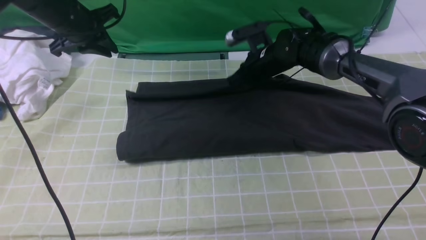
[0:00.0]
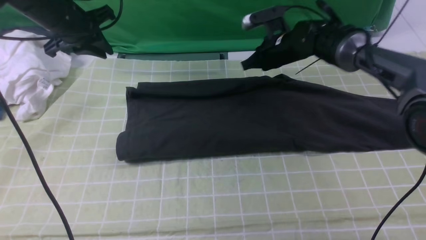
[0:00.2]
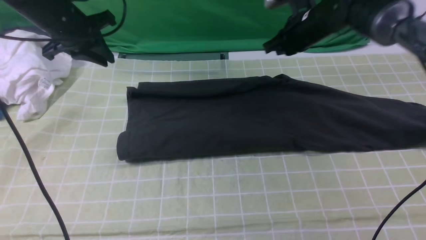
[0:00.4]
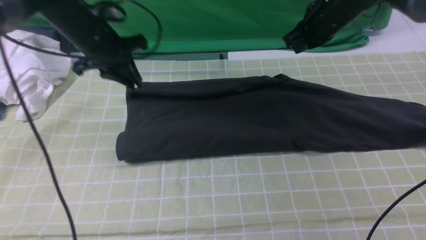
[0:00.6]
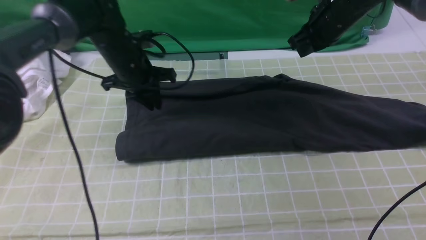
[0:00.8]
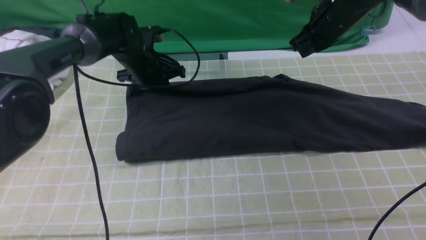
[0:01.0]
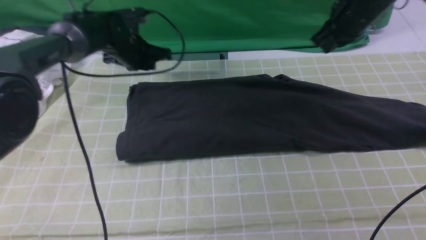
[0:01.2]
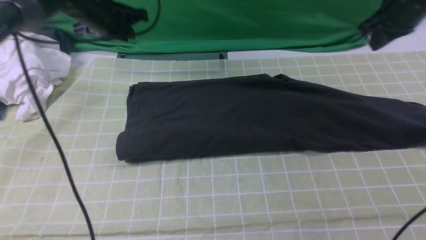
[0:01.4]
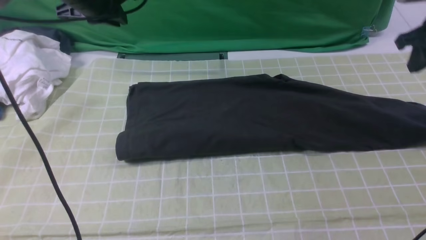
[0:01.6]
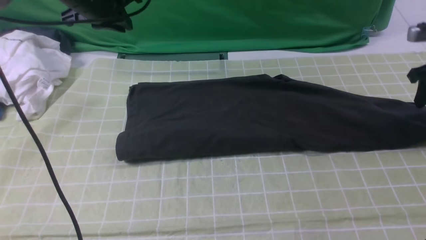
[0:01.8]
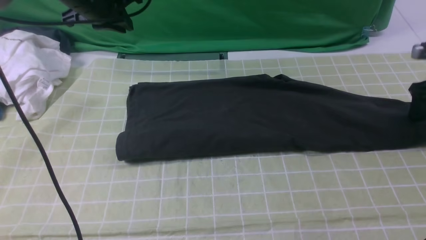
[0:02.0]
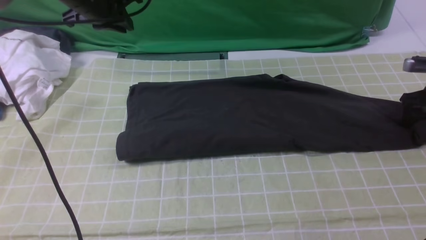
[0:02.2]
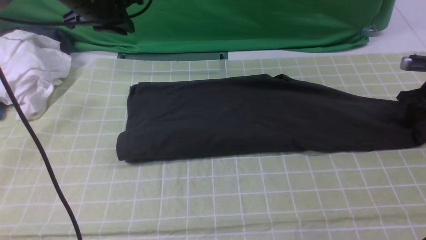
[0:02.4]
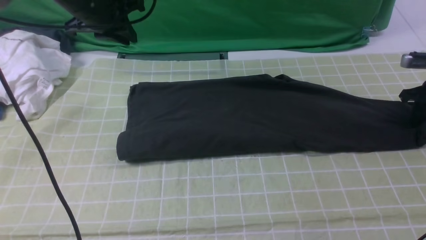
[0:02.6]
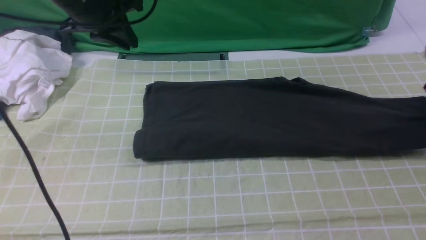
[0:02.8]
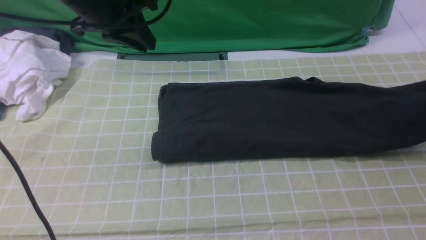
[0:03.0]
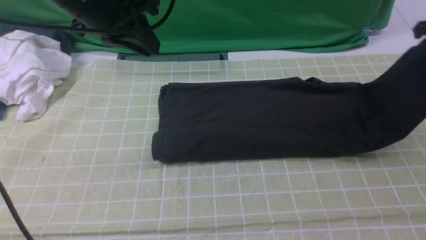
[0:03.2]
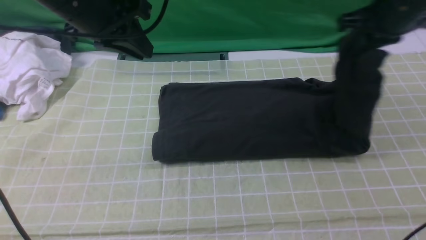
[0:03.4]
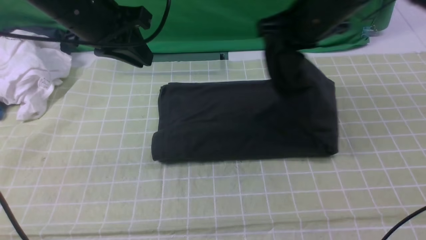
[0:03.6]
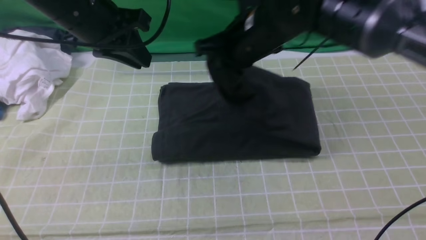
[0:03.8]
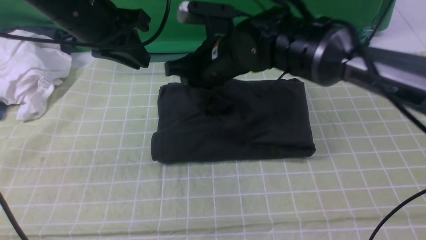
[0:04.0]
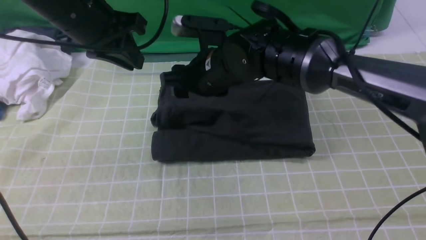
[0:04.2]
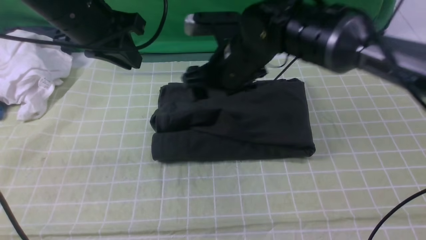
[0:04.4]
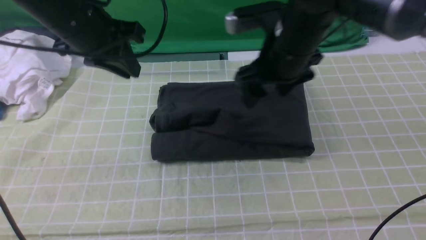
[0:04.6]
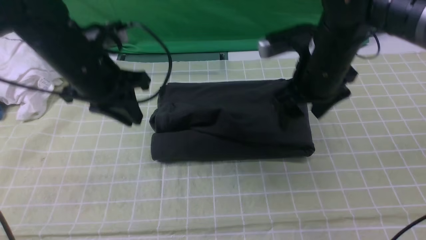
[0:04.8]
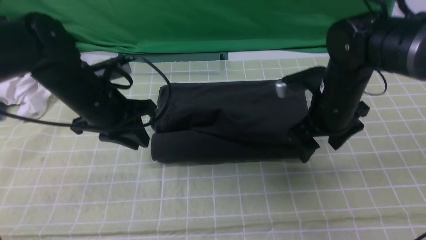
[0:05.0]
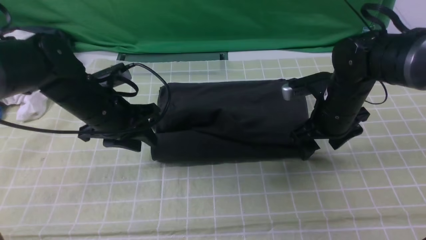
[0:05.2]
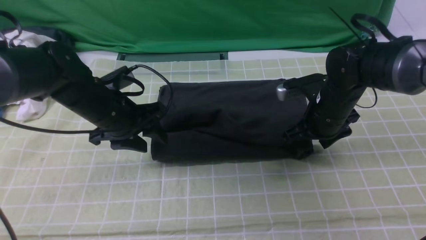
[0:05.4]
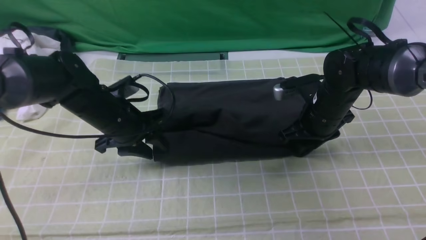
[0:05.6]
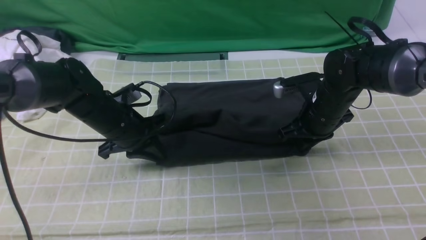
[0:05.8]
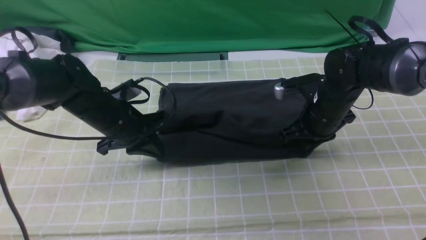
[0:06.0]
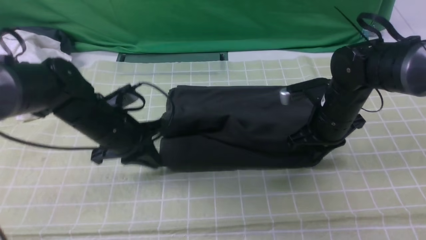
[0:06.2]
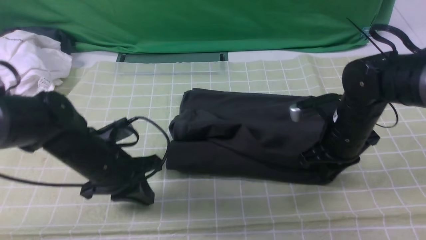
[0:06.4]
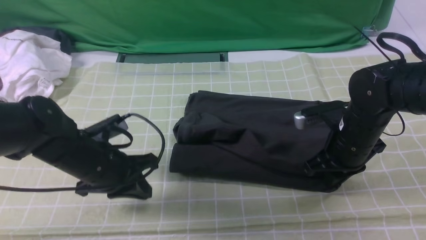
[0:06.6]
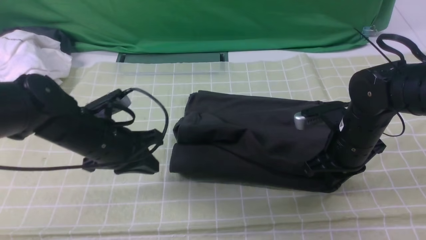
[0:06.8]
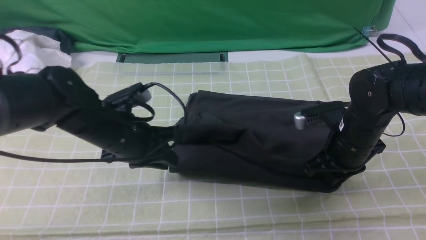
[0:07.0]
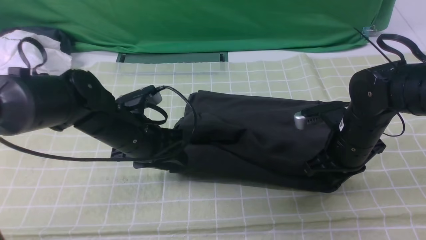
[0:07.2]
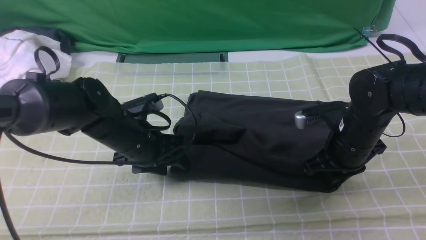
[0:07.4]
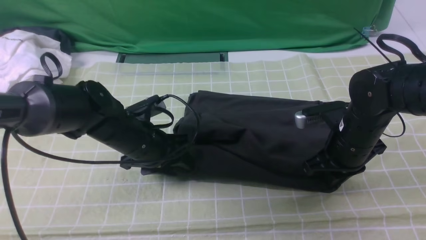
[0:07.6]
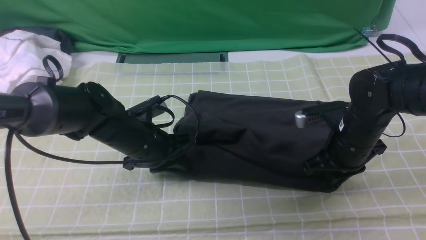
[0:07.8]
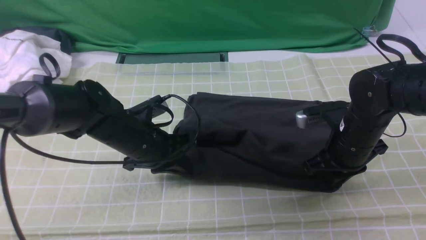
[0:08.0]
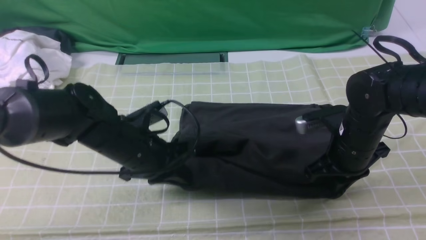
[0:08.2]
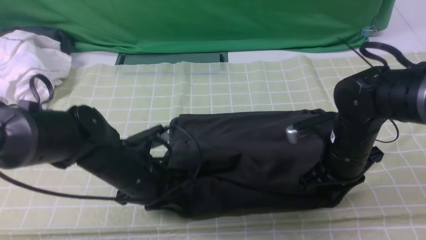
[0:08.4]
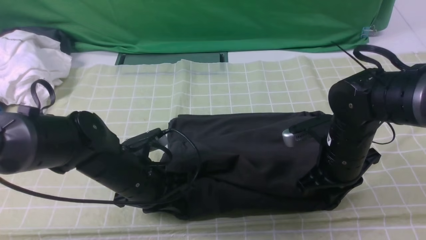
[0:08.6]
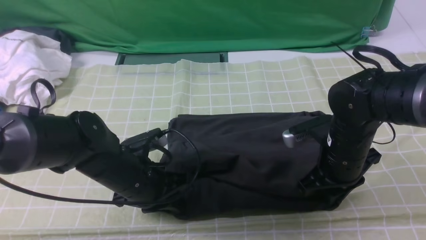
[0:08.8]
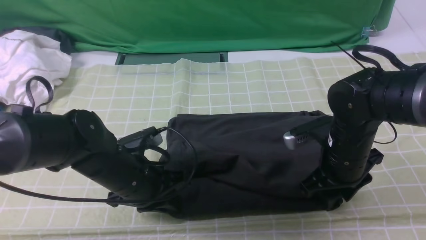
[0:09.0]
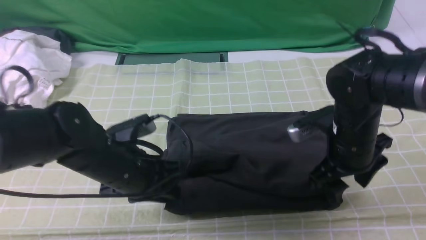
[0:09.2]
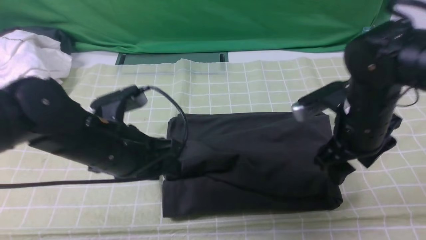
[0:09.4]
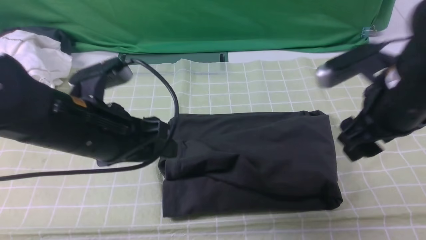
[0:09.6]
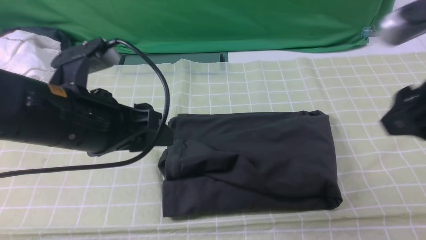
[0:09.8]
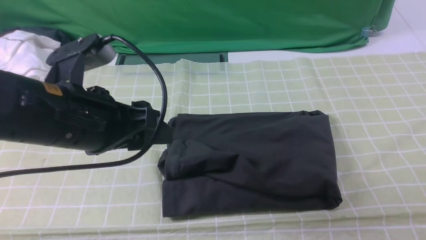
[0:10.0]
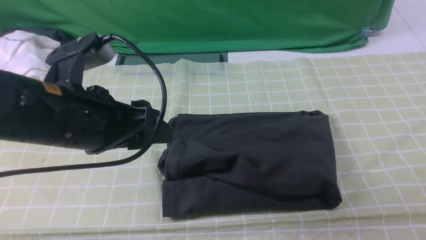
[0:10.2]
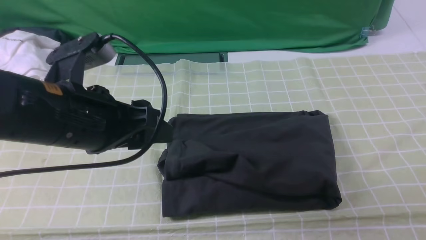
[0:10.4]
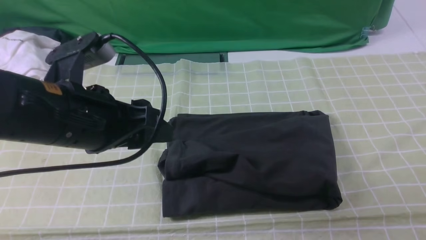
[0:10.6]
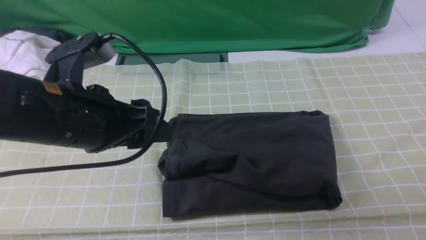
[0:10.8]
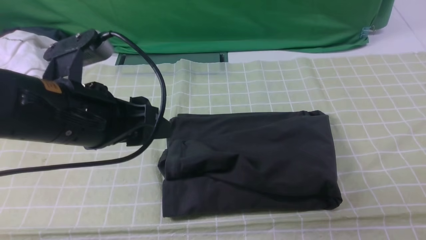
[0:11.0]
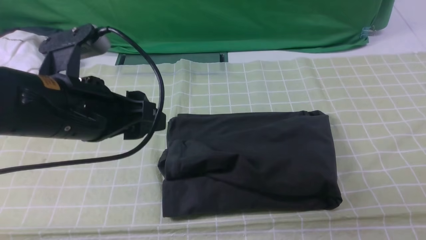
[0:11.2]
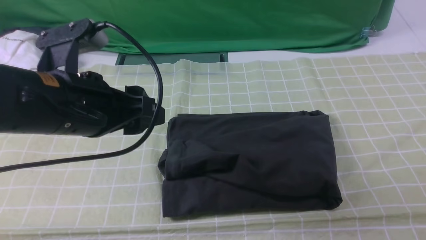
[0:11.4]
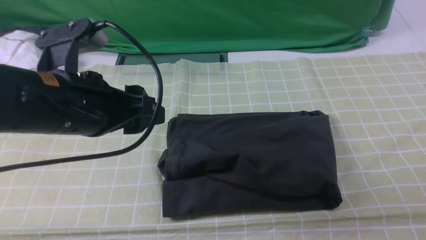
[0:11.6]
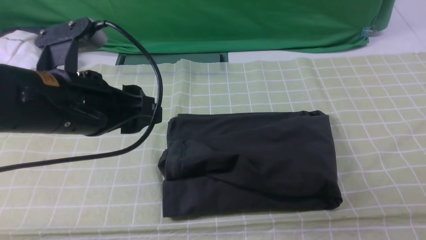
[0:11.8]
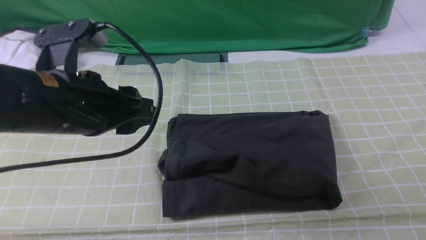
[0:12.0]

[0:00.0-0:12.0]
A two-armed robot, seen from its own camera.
Step, 0:01.4 to 0:02.4: use the right arm to clamp the right edge of the fabric.
Step, 0:02.8 to 0:04.2: use the right arm to drag the right edge of the fabric to the left and folds it over the left edge.
0:00.0 to 0:01.6: The left gripper heads to the right, covering approximately 5 cm, and reaches about 10 cm downward, then returns, while the right gripper is displaced to the right and upward by roughly 25 cm.
0:01.6 to 0:03.0: The right gripper reaches about 10 cm downward, then returns, and opens, then closes once more. Meanwhile the left gripper is displaced backward by some 10 cm.
0:03.0 to 0:04.4: The right gripper moves to the left, roughly 35 cm, and opens.
0:04.4 to 0:06.0: The right gripper shifts roughly 15 cm to the right and downward, and closes up, while the left gripper travels downward by about 20 cm, and opens, then closes again.
0:06.0 to 0:07.6: The left gripper opens; the right gripper heads backward, covering some 5 cm.
0:07.6 to 0:09.0: The right gripper opens its fingers; the left gripper heads backward, covering roughly 5 cm, and closes its fingers.
0:09.0 to 0:10.4: The left gripper heads upward, covering some 15 cm, and opens its fingers. The right gripper goes roughly 35 cm backward, upward and to the right, and closes.
0:10.4 to 0:12.0: The right gripper shifts roughly 15 cm downward.

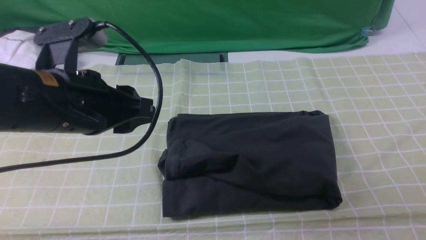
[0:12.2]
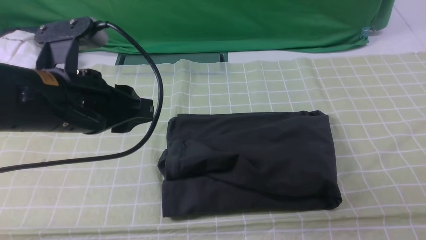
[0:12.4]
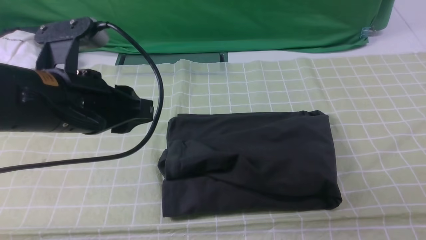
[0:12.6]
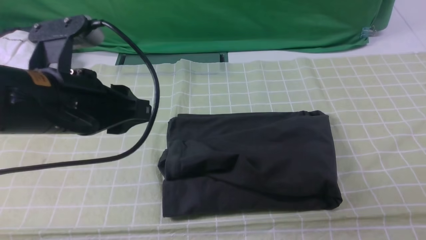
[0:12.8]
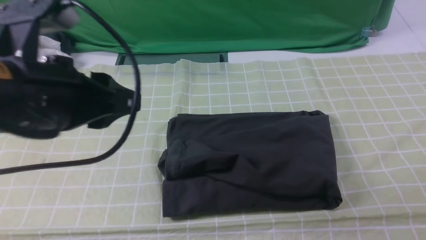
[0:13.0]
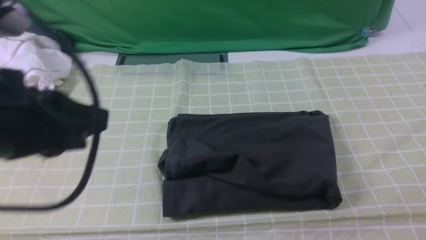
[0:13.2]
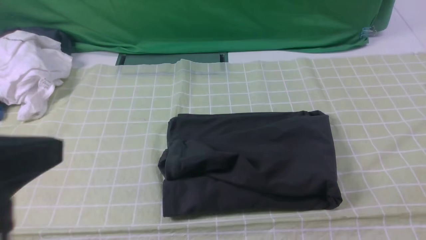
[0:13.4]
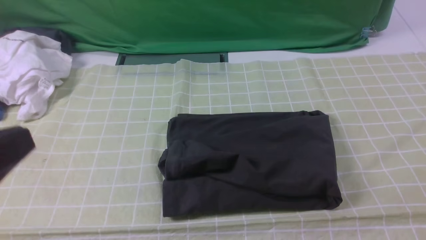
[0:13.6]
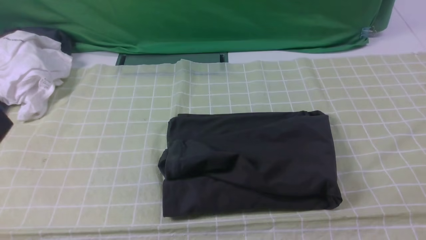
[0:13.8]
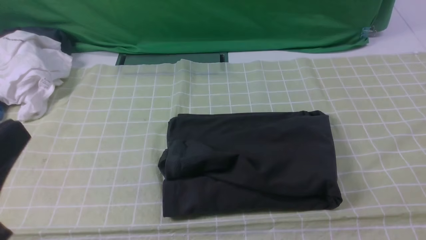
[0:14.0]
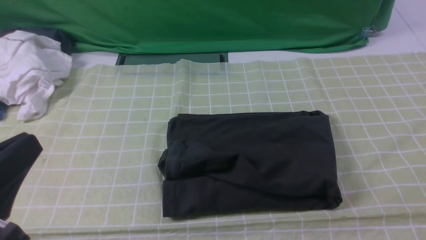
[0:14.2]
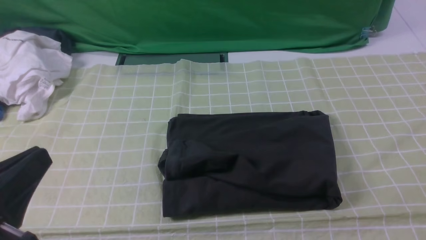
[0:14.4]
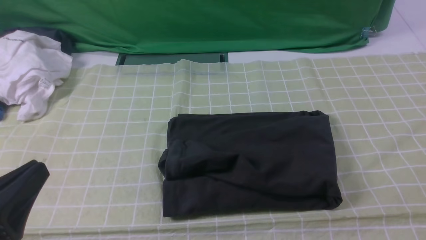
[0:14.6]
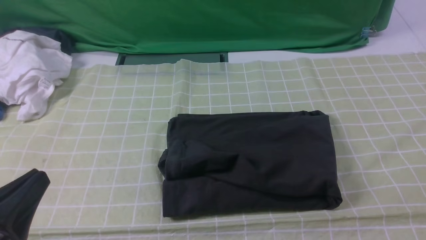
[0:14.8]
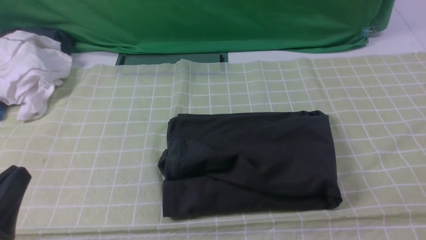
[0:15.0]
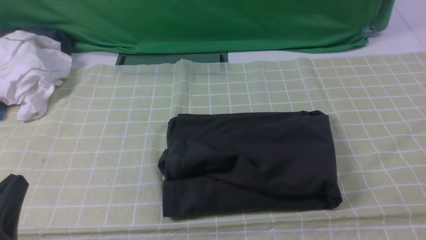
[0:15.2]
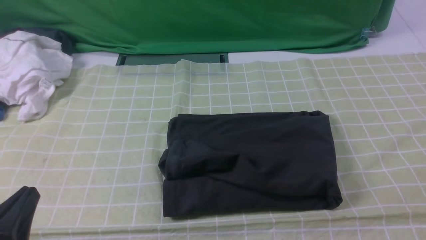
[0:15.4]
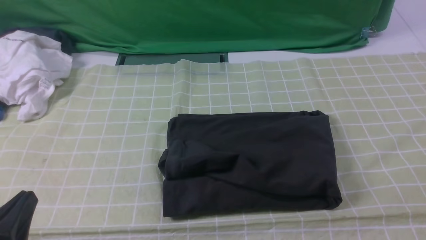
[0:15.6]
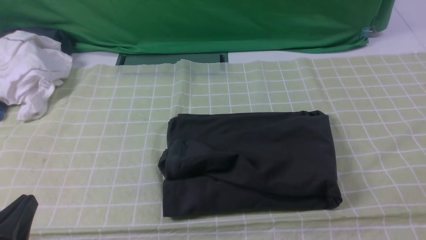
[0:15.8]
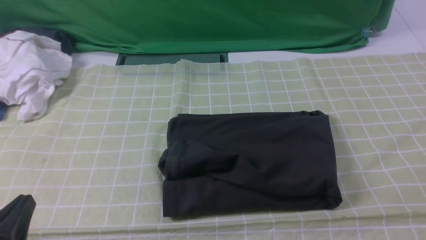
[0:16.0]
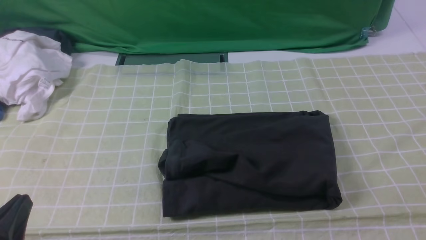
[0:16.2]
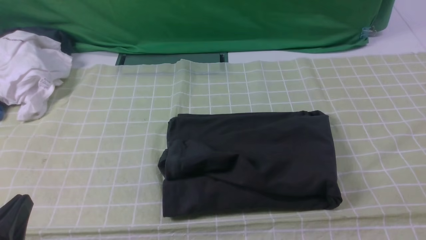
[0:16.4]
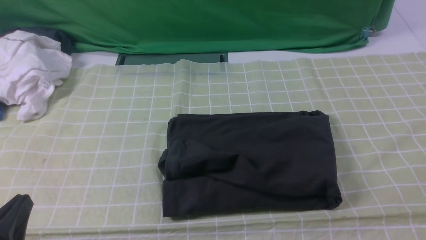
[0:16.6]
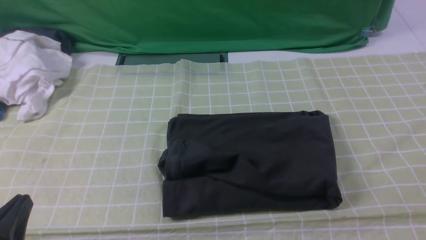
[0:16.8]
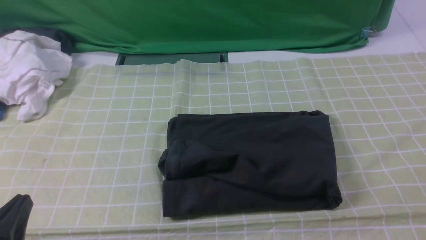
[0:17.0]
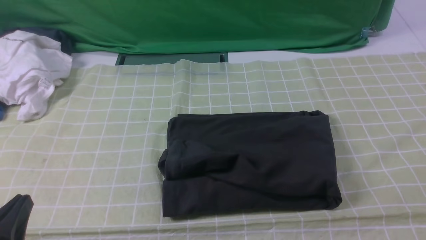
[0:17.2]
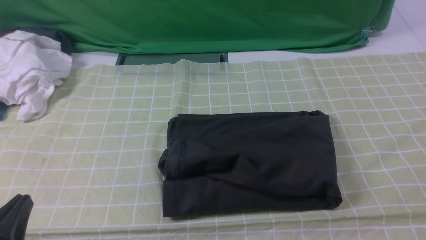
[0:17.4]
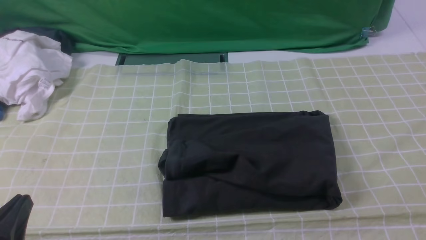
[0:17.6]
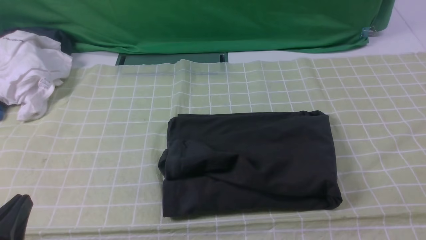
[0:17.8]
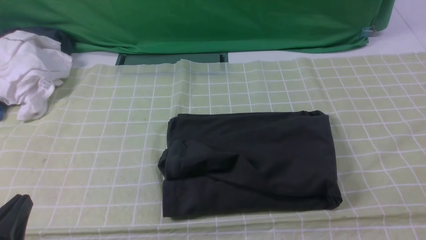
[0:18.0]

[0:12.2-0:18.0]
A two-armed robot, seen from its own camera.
0:12.2 to 0:13.6: The left gripper heads backward, covering some 15 cm, and closes its fingers.
0:13.6 to 0:15.0: The left gripper heads downward, covering approximately 10 cm.
0:15.0 to 0:16.6: The grippers stay close to where they were, moving slightly.
0:16.6 to 0:18.0: Neither gripper changes place.
